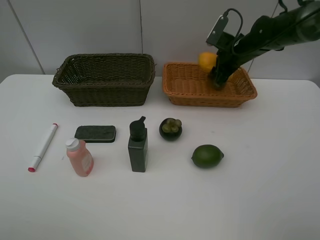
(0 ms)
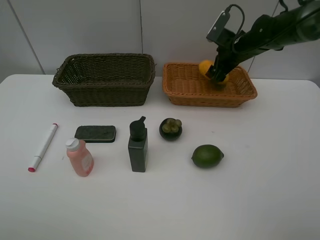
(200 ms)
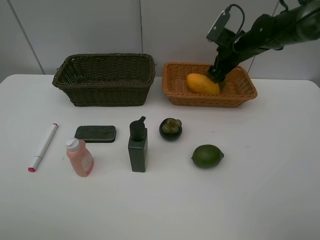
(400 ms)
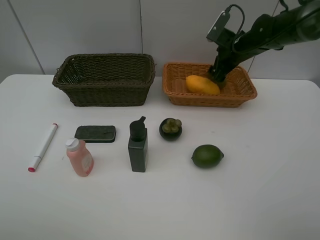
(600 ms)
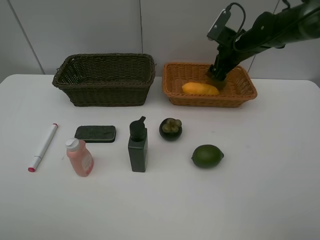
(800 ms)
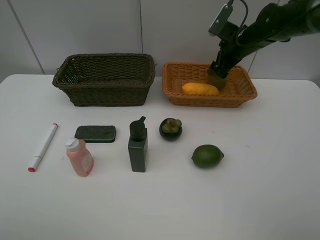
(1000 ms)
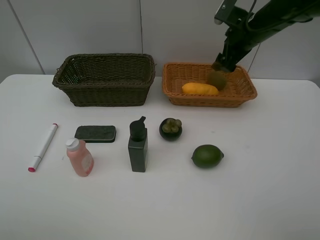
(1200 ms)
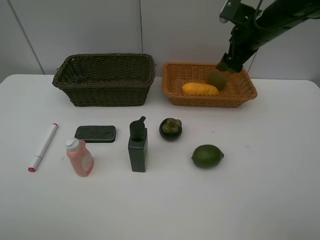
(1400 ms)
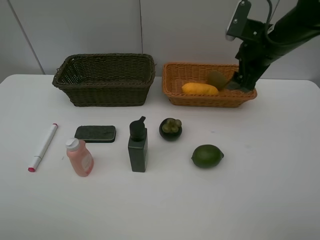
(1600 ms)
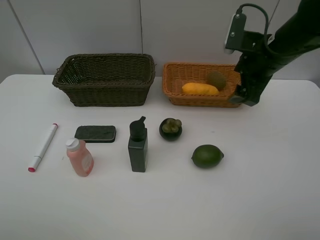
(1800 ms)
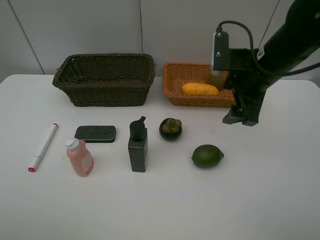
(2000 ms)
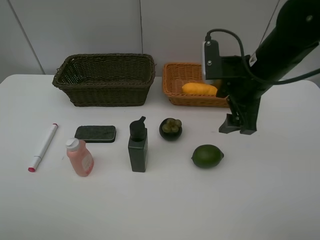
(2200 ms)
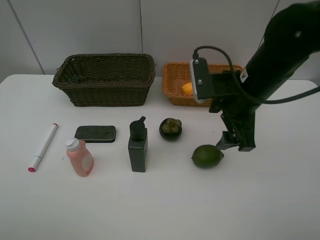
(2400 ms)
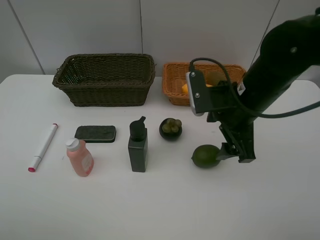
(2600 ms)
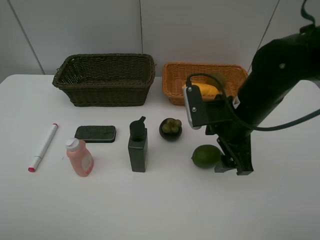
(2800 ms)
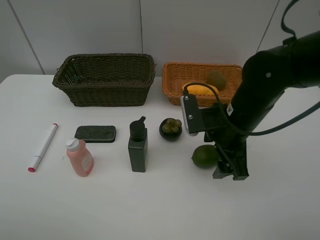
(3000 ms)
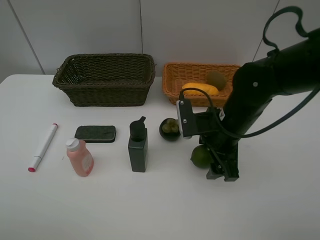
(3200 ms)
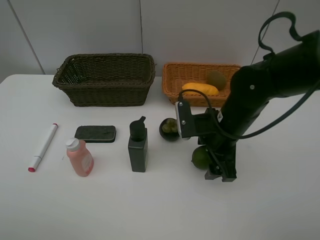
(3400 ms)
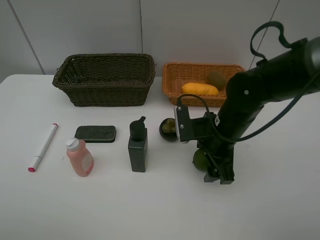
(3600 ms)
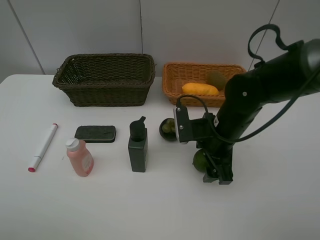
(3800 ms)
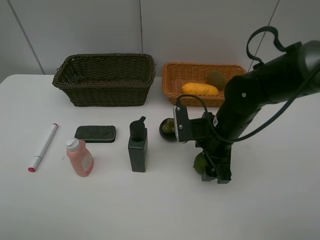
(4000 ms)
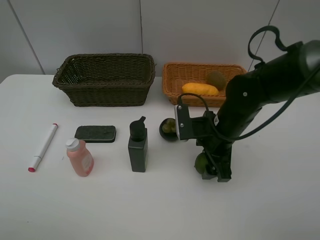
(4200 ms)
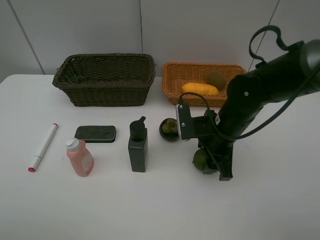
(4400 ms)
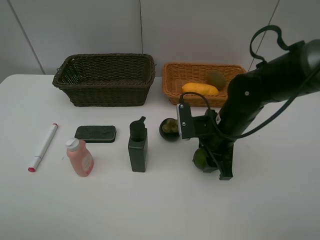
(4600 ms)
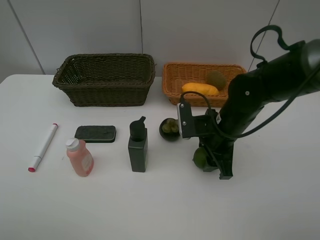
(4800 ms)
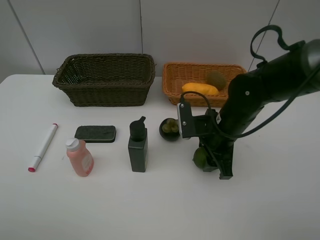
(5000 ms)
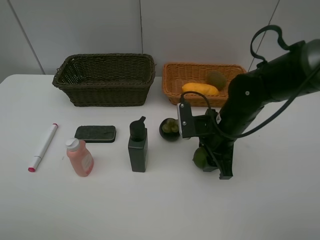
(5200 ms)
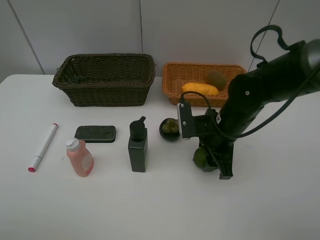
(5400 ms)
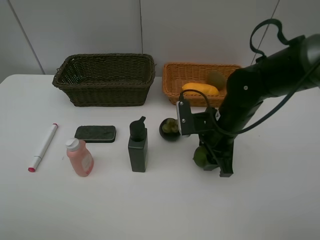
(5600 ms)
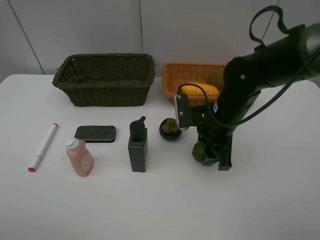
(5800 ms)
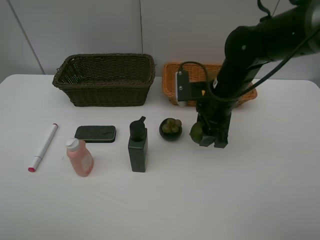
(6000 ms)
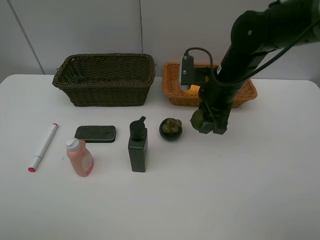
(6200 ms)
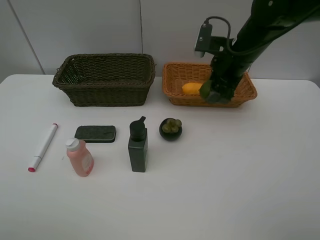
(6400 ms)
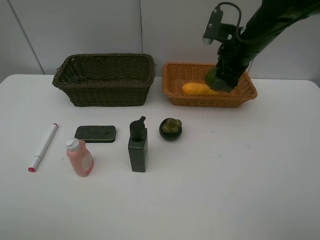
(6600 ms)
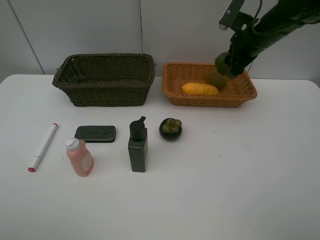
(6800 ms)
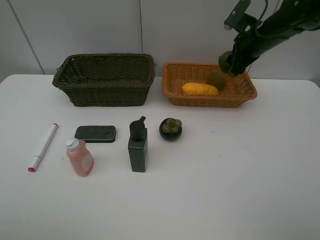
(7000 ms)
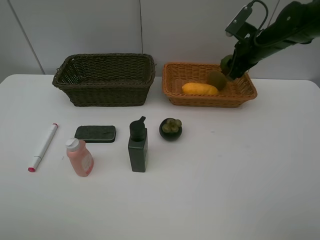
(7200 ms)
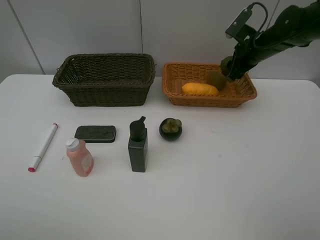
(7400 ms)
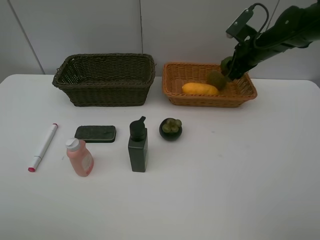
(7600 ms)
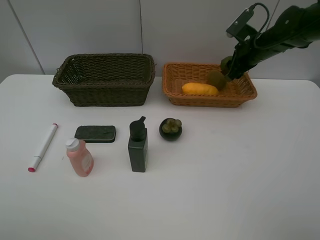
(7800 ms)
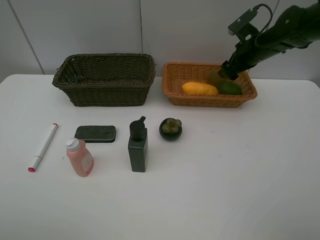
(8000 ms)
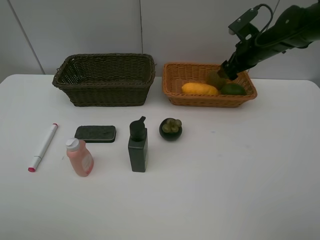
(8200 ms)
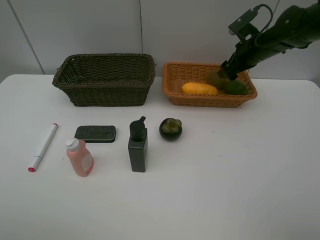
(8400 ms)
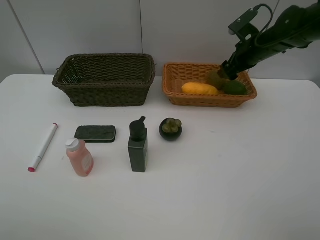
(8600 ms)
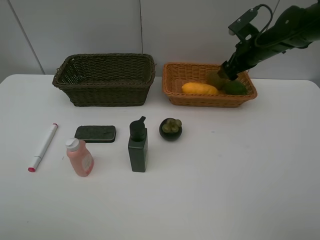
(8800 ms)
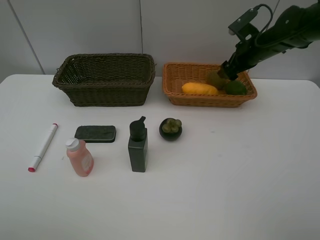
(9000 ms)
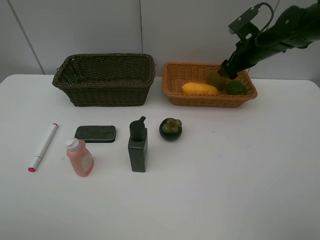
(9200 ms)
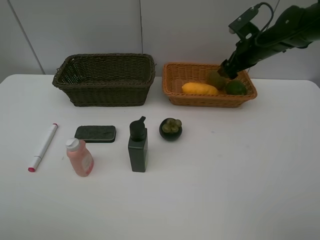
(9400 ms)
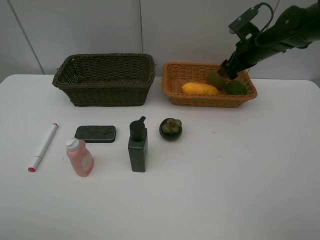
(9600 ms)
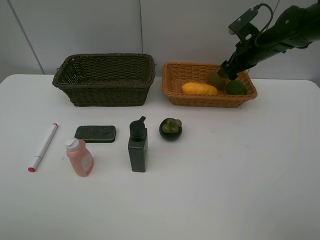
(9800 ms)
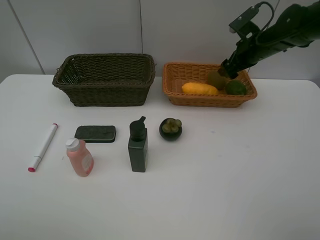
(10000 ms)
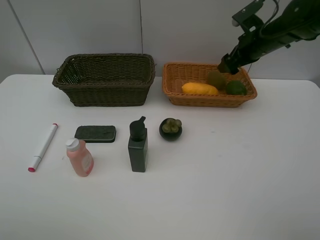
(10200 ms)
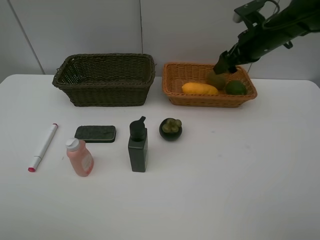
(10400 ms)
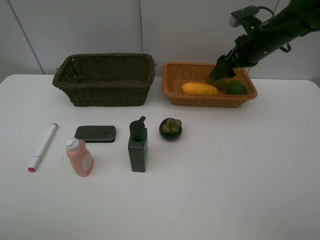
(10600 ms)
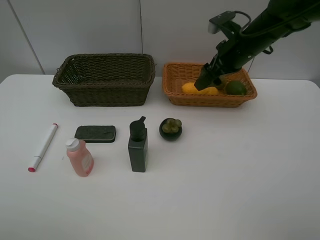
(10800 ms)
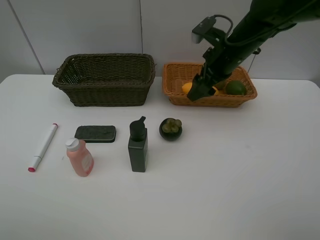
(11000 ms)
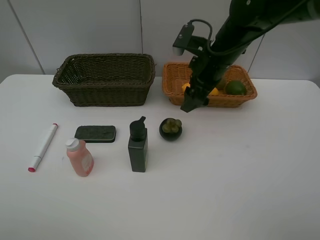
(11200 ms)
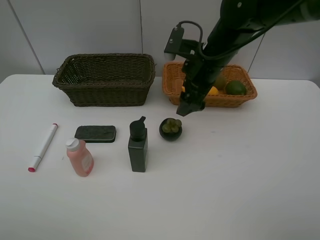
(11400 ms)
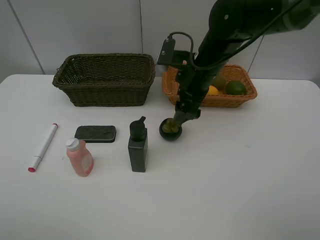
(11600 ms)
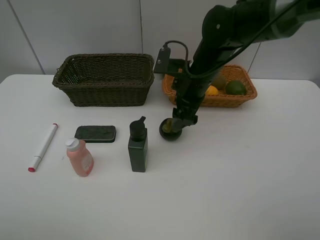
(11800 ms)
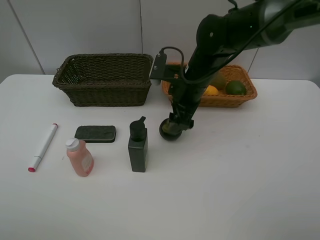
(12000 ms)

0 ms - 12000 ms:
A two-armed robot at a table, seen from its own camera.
Task of the whole recording: Place multiple objects separately in different baskets.
Step, 800 ms - 5800 ms: Pick up the lime with right gripper.
Step, 6000 ms - 8200 ms: Place the lime in the light basket with right gripper.
0 ms - 1600 ms: The right gripper travels backward and upward by some 15 cm, and opens.
1600 ms - 3000 ms: The right gripper travels backward, downward and to the left by approximately 15 cm.
3000 ms - 4400 ms: The right gripper closes its fingers.
4400 ms - 6000 ms: The right gripper travels upward by roughly 5 cm.
6000 ms - 7600 ms: The right gripper heads forward and to the right, covering approximately 20 cm.
7600 ms - 9000 ms: The right gripper opens its fingers.
9000 ms - 10400 ms: The grippers stay close to where they were, moving slightly.
10400 ms - 12000 ms: The right gripper goes approximately 15 cm to the left and backward.

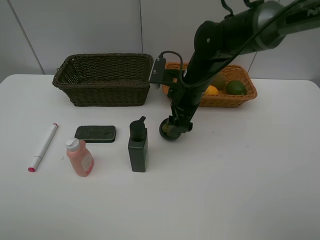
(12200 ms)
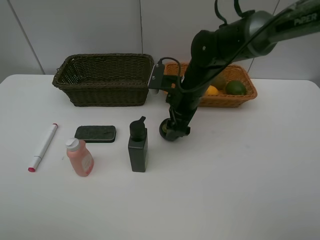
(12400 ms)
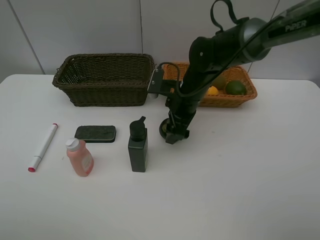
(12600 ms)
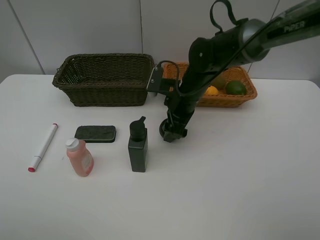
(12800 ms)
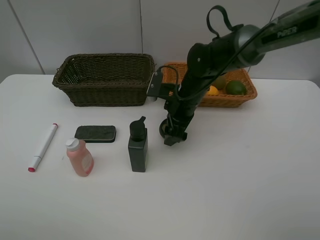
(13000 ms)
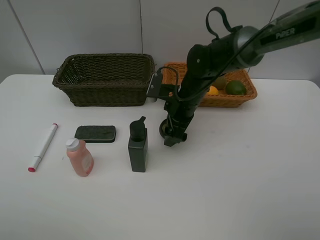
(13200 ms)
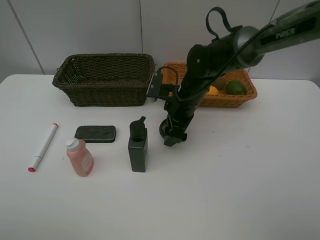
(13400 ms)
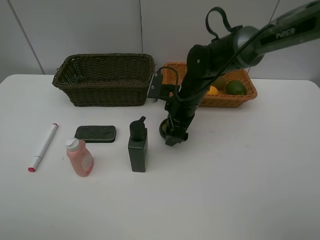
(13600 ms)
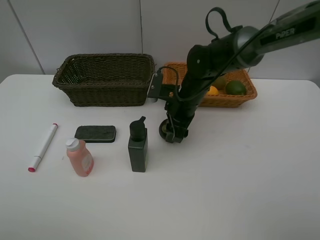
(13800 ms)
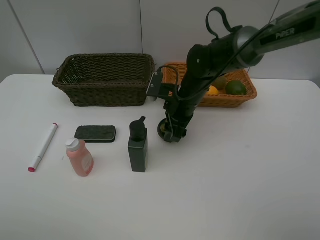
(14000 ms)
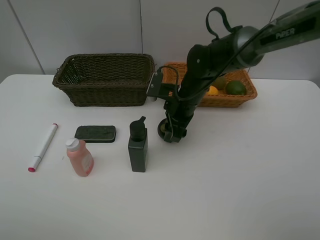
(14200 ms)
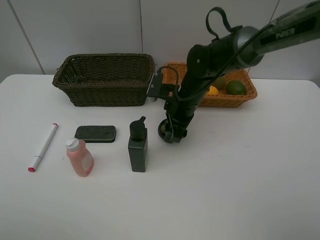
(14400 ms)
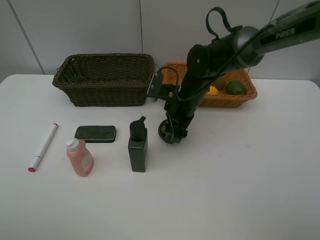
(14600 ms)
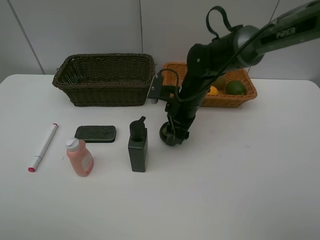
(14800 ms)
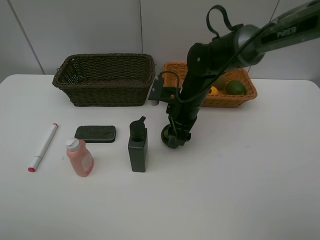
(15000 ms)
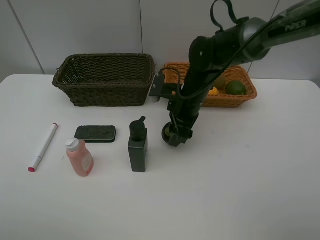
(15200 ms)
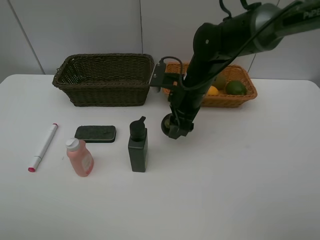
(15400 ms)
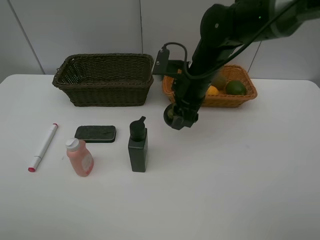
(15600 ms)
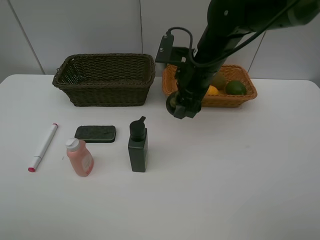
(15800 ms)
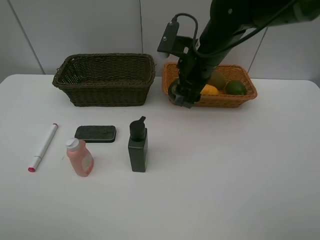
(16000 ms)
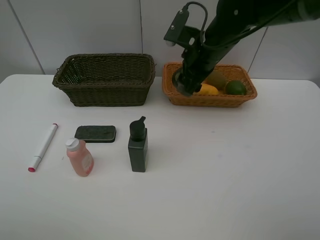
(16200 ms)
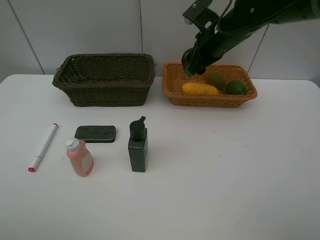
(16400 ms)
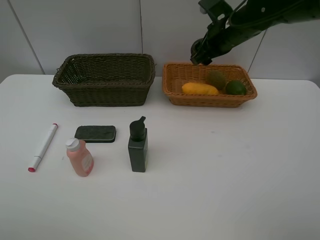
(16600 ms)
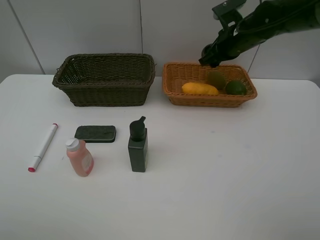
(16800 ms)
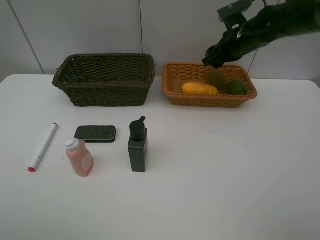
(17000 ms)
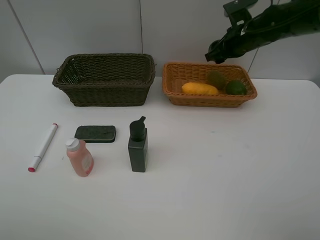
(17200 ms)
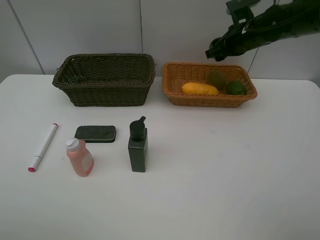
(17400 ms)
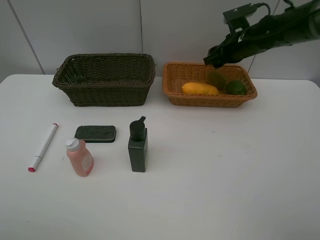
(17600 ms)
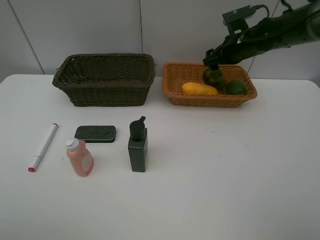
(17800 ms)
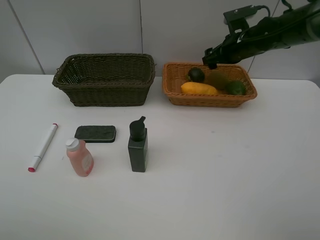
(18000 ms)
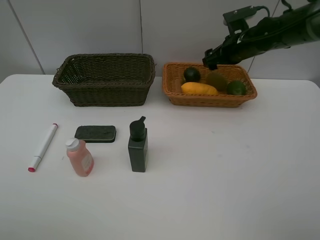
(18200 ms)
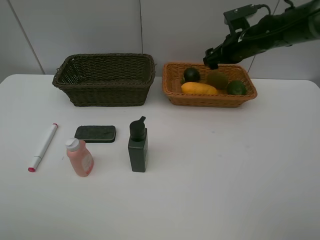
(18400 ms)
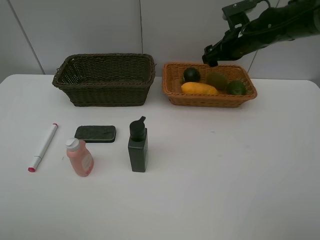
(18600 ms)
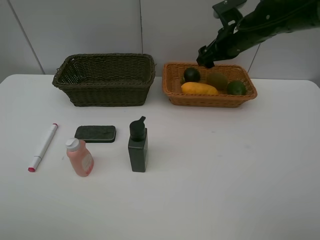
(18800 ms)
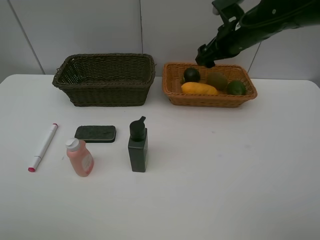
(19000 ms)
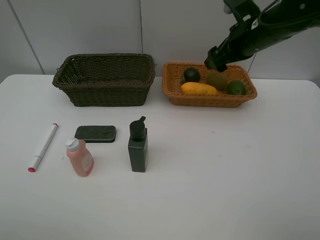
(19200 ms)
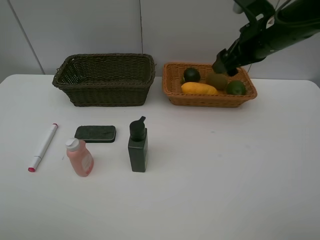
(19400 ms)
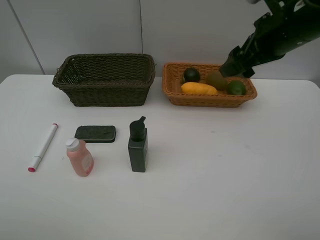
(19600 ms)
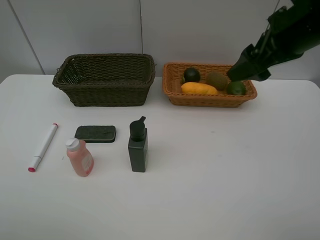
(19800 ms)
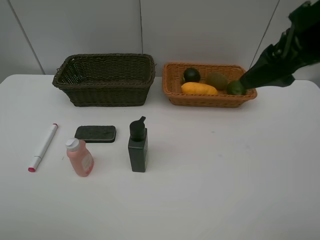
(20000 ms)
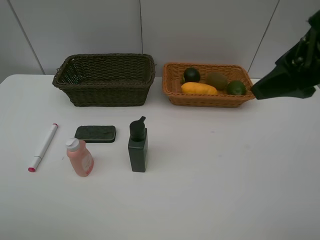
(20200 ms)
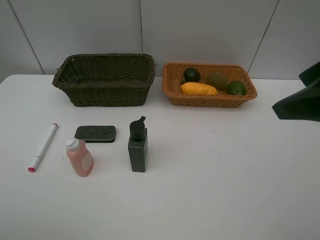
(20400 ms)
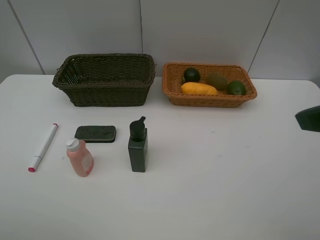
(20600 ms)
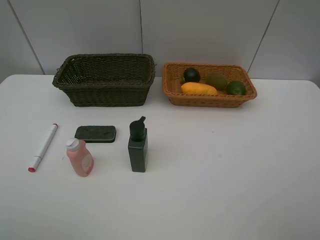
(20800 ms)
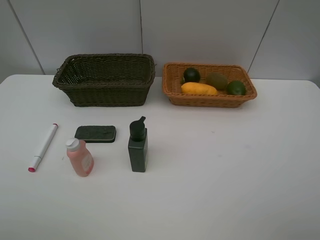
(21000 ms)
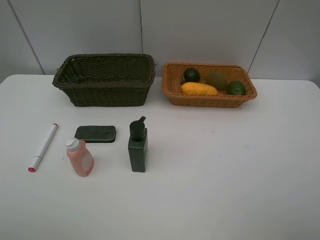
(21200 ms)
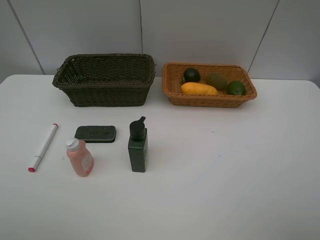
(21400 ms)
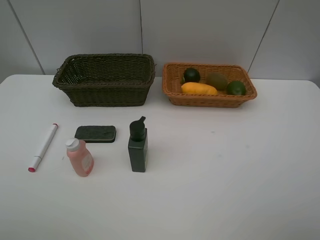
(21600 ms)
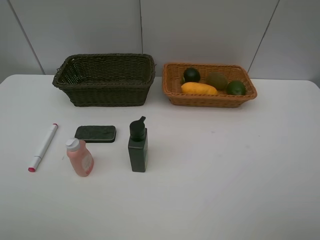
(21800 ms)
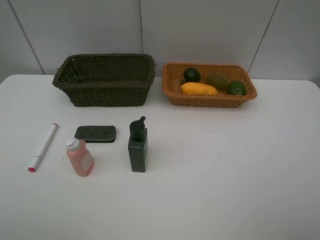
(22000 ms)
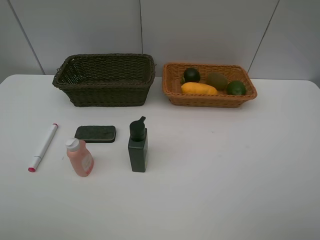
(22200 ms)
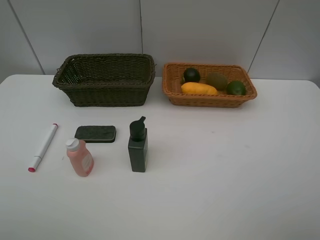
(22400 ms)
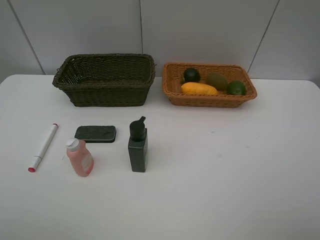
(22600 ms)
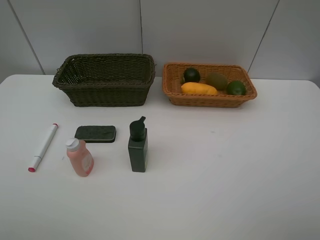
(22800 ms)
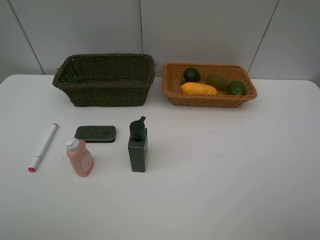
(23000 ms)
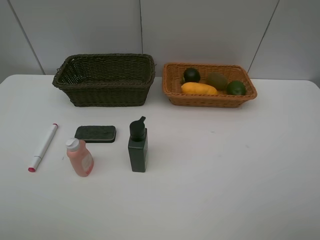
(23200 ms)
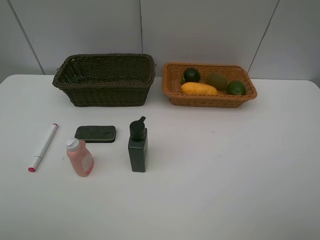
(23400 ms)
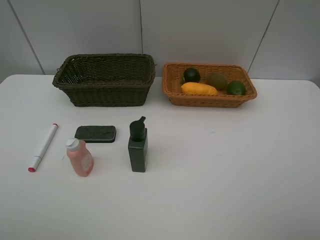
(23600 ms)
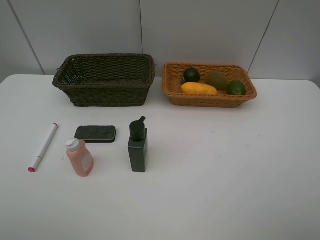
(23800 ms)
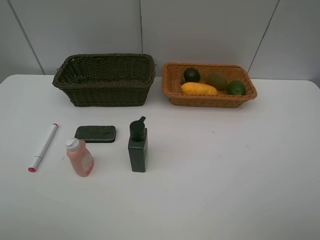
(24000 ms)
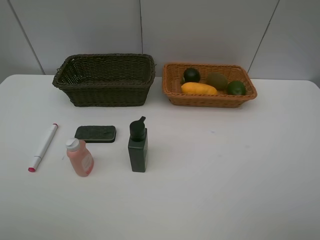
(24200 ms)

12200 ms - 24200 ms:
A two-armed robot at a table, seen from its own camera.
Task of the whole recording: Place multiple objects separately in different baskets.
Step, 12200 ms - 15400 ms: Pick up the mangosteen with right gripper.
Step, 15600 ms - 18000 ms: Place the mangosteen in the light basket with right gripper.
12200 ms - 13800 ms: The right gripper closes.
13800 ms - 15200 ms: The grippers move only a little.
15200 ms - 16600 ms: The right gripper heads upward, to the right and forward, covering some 15 cm.
16600 ms - 18200 ms: The right gripper changes place by some 5 cm, and opens its fingers.
18200 ms - 19800 ms: The right gripper goes roughly 25 cm backward and upward.
19800 ms - 21200 ms: The right gripper moves backward, about 25 cm.
